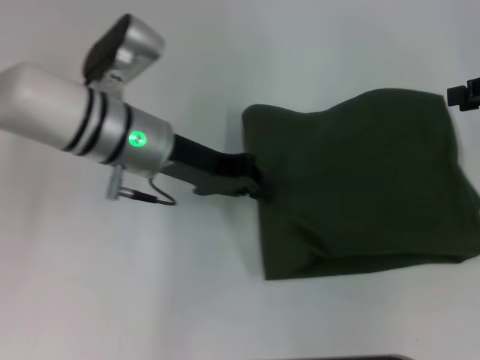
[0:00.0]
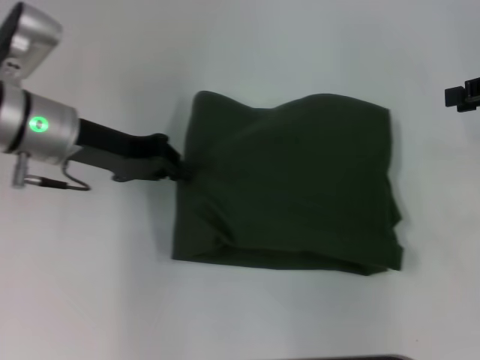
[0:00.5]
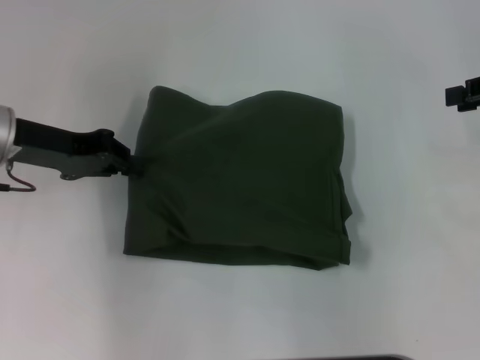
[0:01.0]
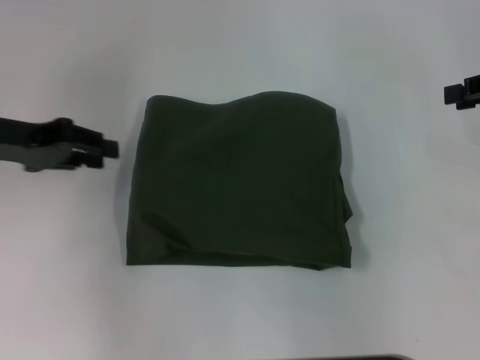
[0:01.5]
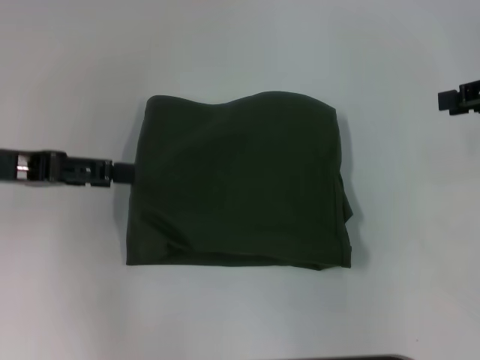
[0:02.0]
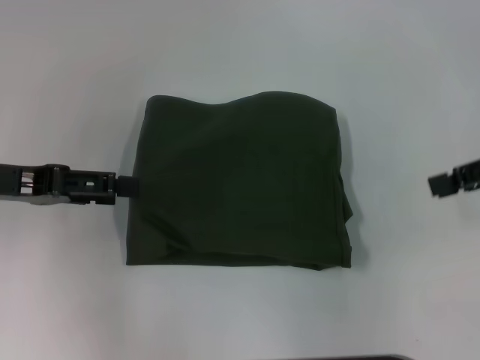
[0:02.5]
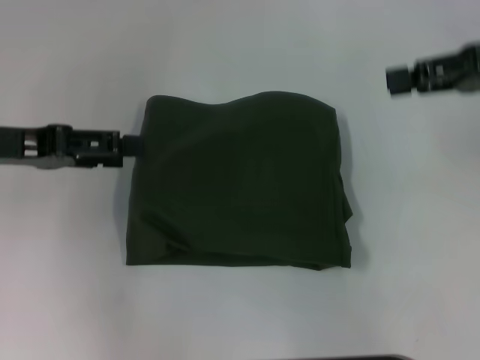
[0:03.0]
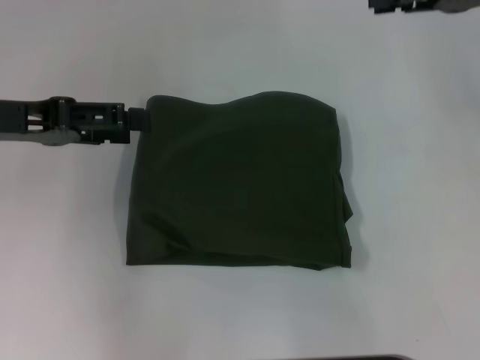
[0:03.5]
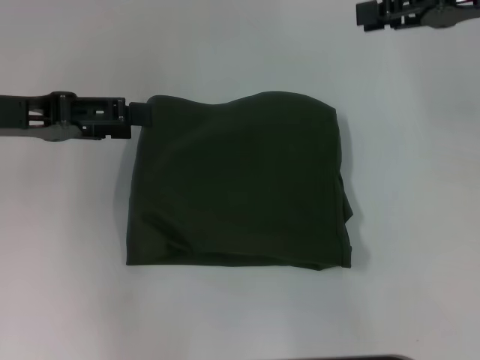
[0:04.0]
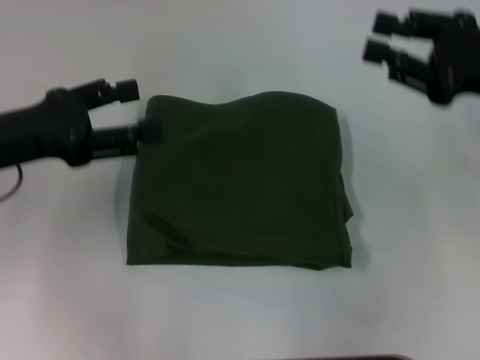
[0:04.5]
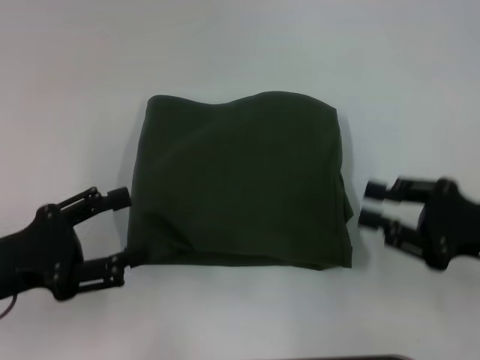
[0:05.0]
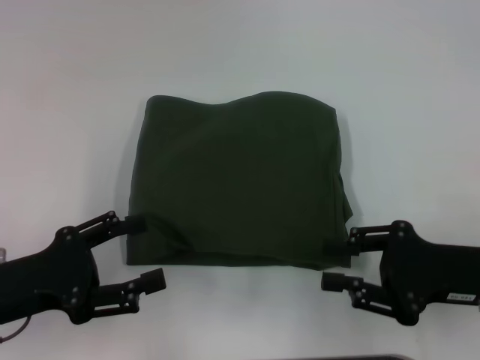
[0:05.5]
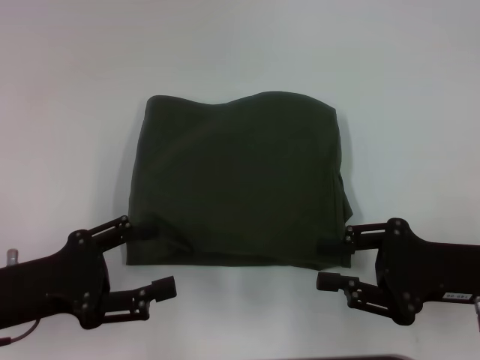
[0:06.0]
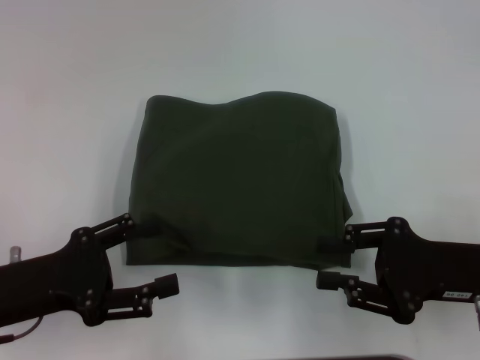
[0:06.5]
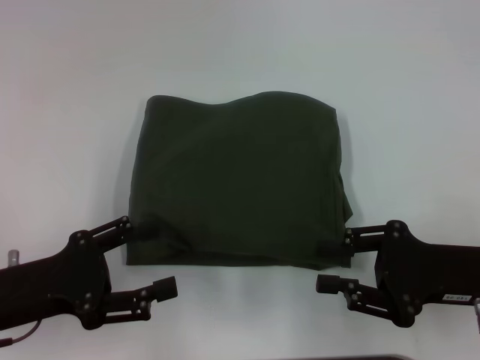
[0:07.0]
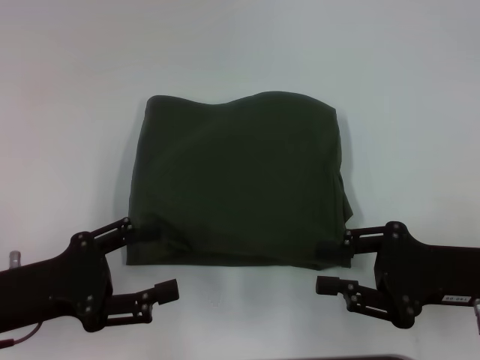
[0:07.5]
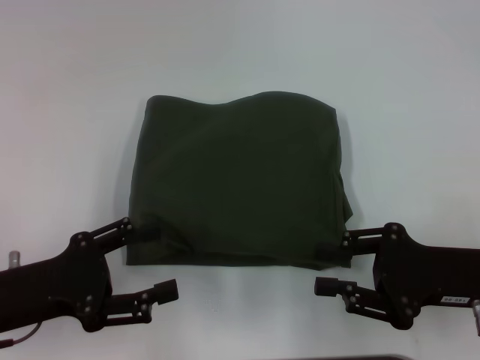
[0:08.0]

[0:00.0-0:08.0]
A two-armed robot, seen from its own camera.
0:00.0 to 0:02.0: The left gripper heads to the left, covering roughly 15 cm, and opens up.
0:02.0 to 0:04.0: The right gripper is displaced to the left by roughly 5 cm.
0:04.0 to 0:06.0: The grippers both shift backward and downward by some 20 cm.
0:06.0 to 0:08.0: Neither gripper changes place.

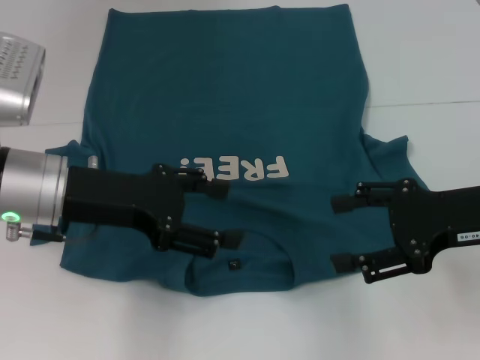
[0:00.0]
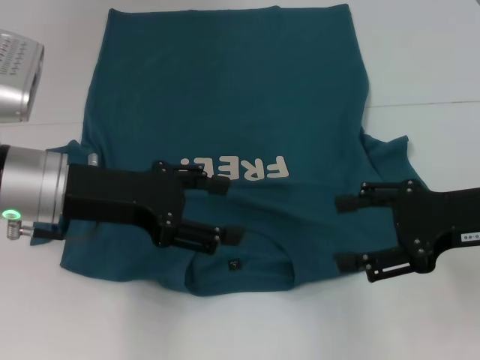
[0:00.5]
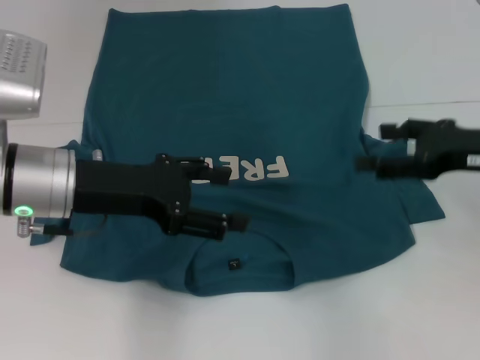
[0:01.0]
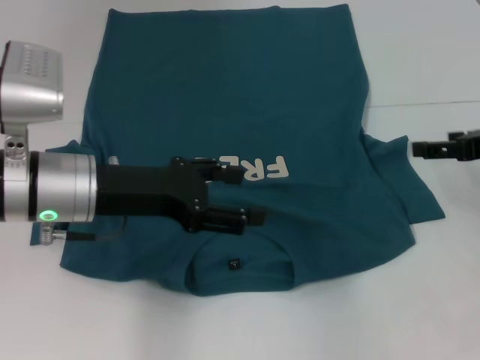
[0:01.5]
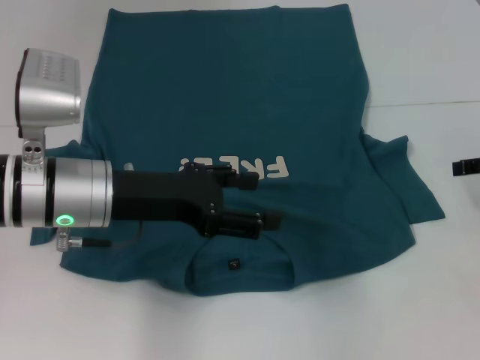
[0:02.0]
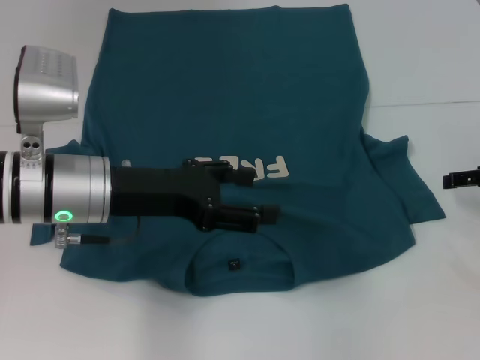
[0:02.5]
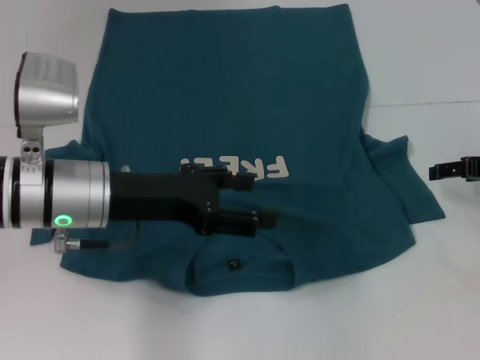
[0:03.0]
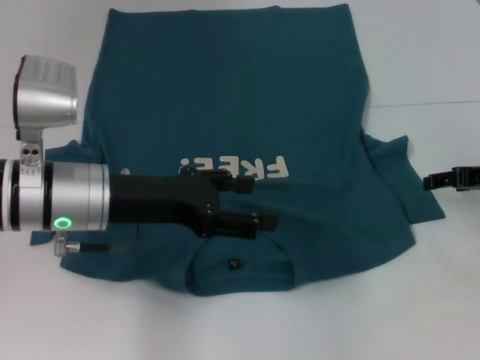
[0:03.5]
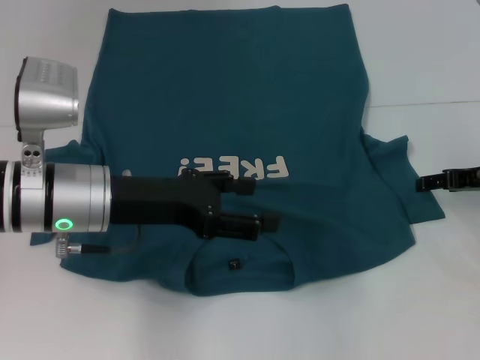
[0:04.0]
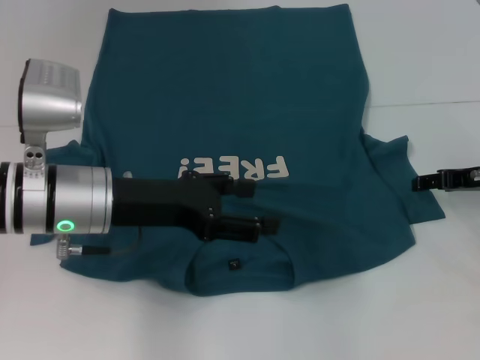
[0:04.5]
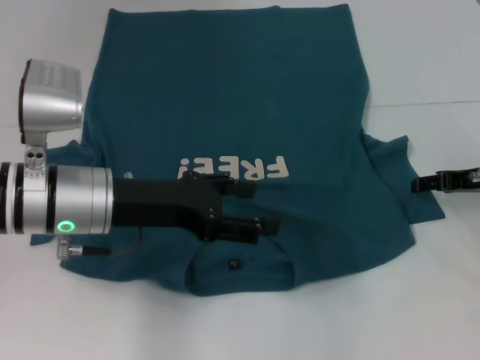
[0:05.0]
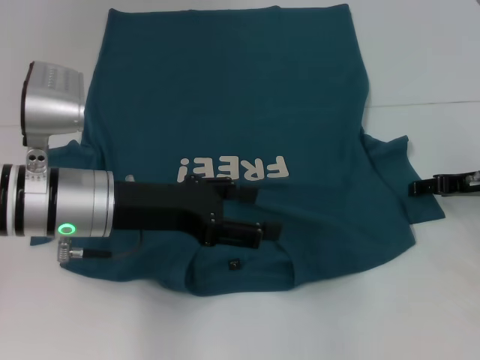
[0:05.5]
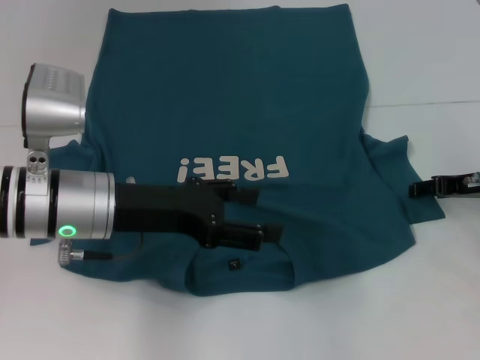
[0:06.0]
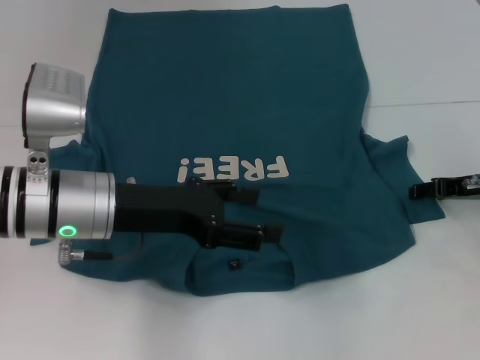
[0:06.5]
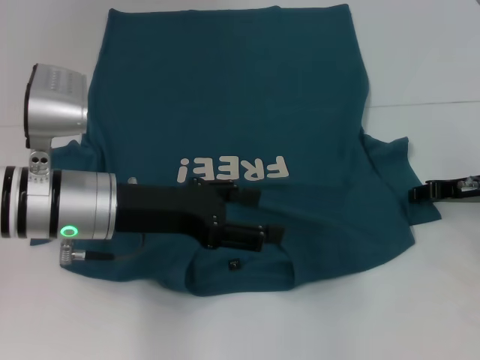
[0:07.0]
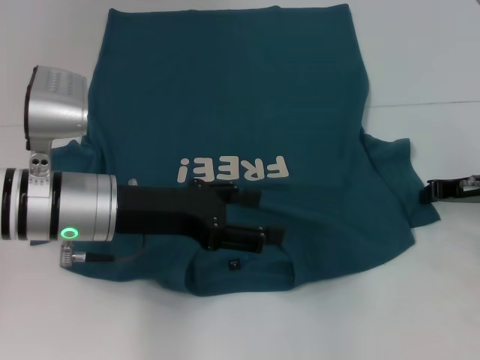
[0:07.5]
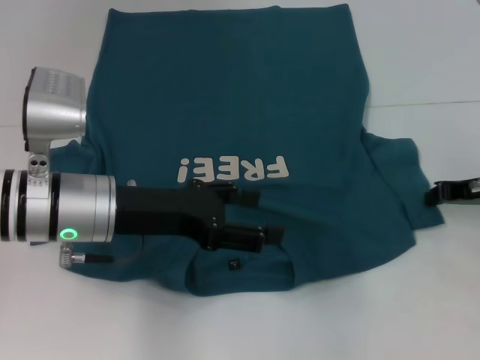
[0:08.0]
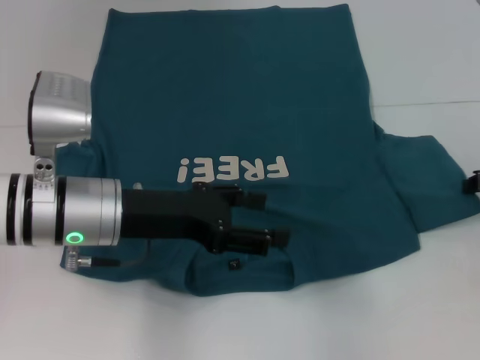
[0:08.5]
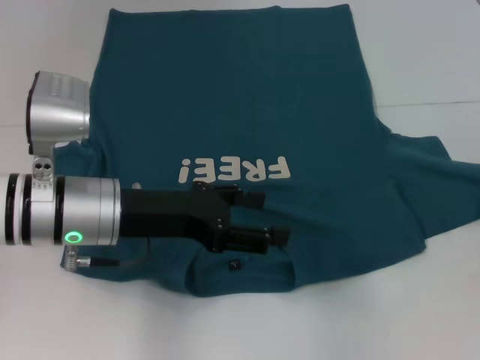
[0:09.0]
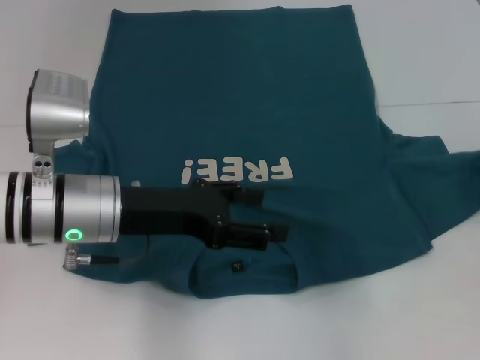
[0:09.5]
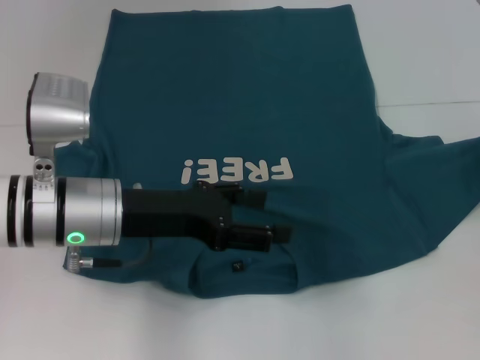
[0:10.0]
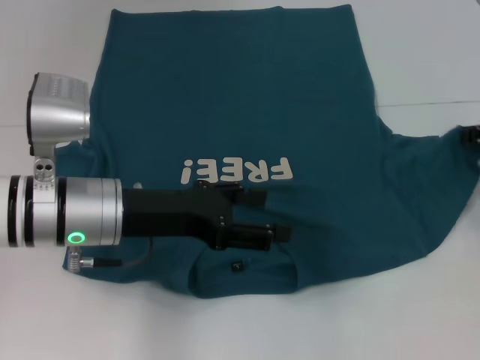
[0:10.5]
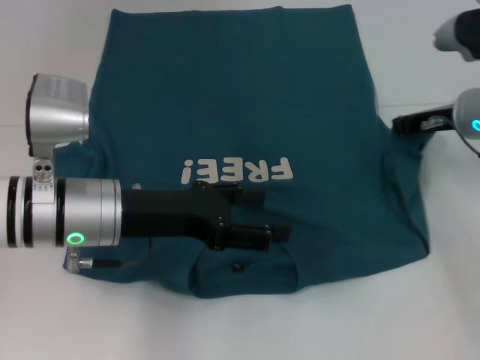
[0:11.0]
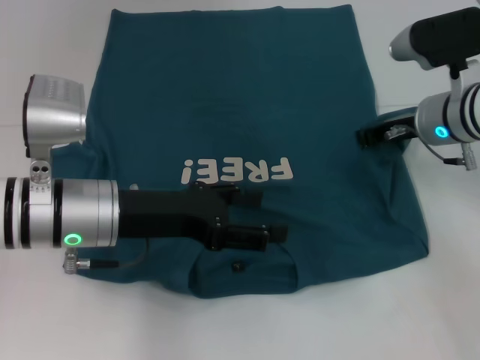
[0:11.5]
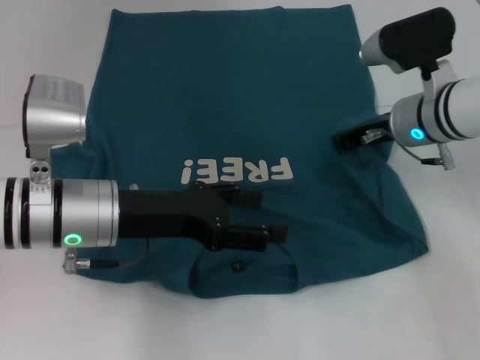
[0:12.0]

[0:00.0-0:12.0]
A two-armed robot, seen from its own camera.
0:00.0 to 0:02.0: The right gripper travels to the right and forward by about 10 cm.
0:02.0 to 0:04.0: The right gripper travels downward by some 5 cm.
0:04.0 to 0:06.0: The grippers move only a little.
0:06.0 to 0:08.0: The right gripper closes up.
0:08.0 to 0:10.0: The right gripper moves roughly 5 cm.
0:10.0 to 0:12.0: The right gripper is displaced to the left by roughly 15 cm.

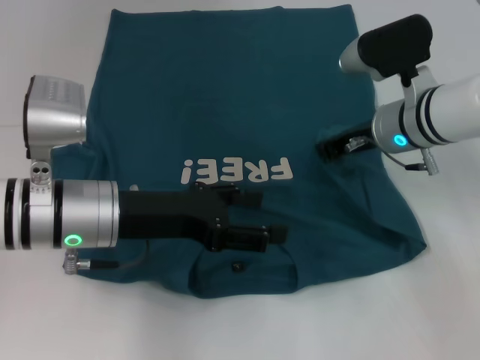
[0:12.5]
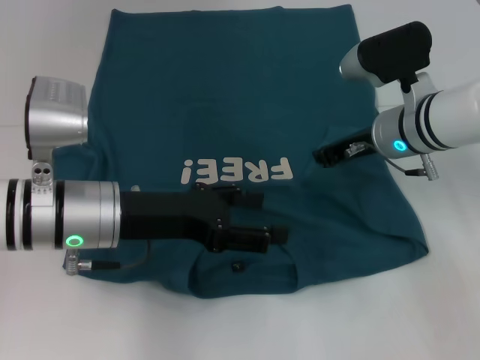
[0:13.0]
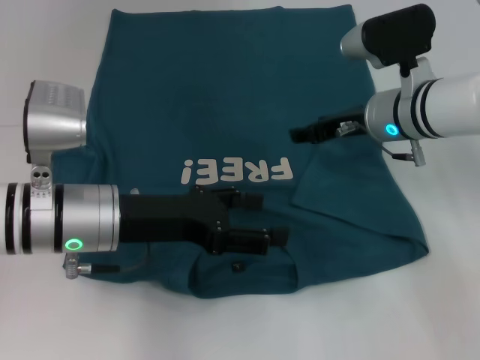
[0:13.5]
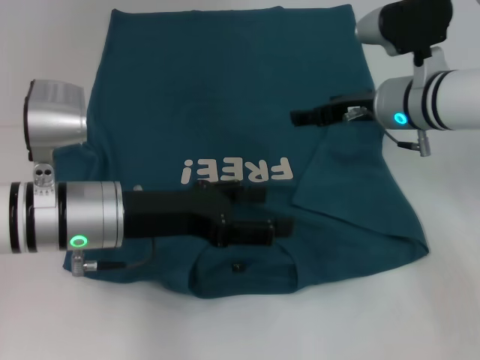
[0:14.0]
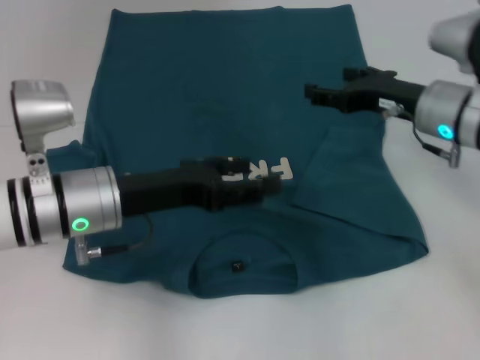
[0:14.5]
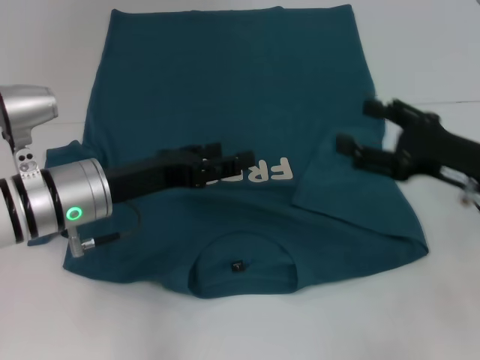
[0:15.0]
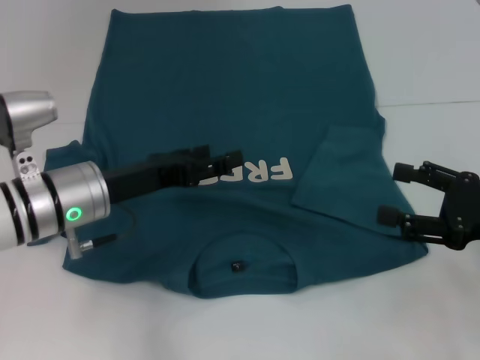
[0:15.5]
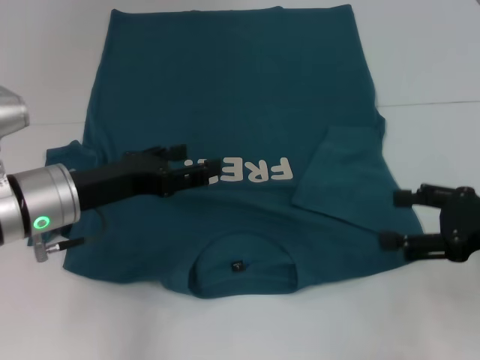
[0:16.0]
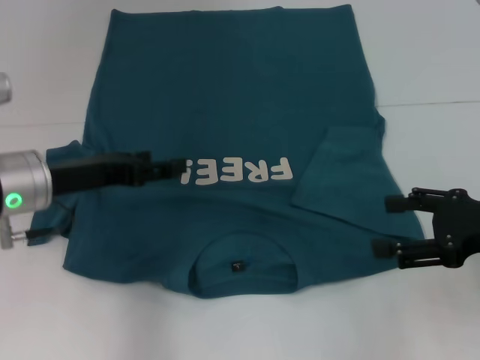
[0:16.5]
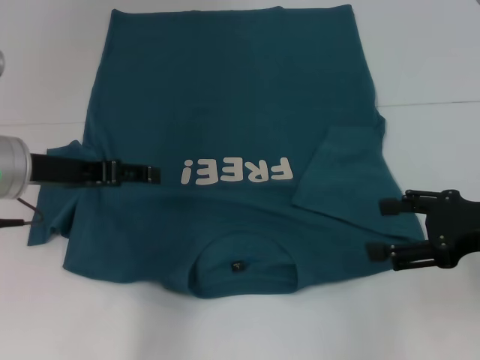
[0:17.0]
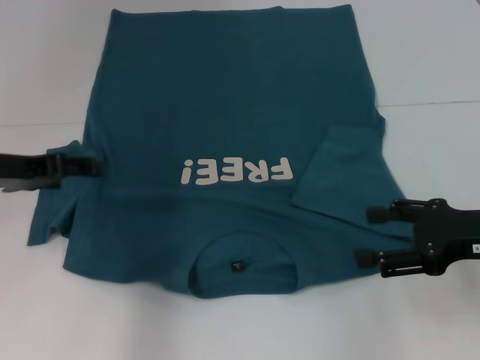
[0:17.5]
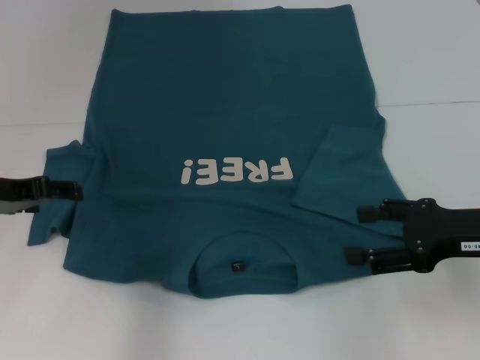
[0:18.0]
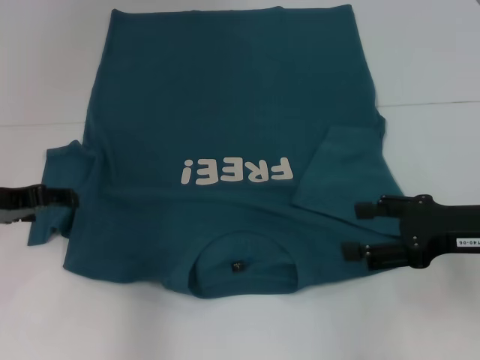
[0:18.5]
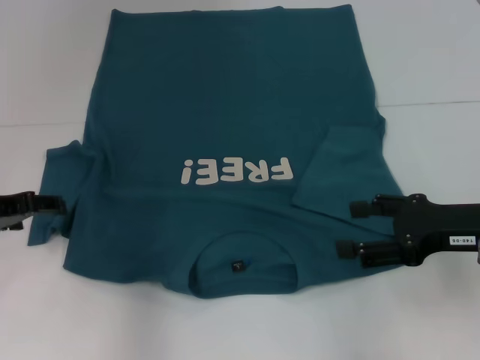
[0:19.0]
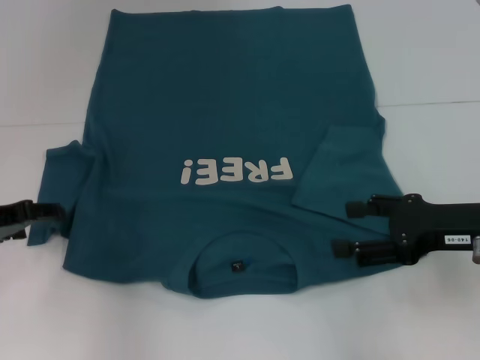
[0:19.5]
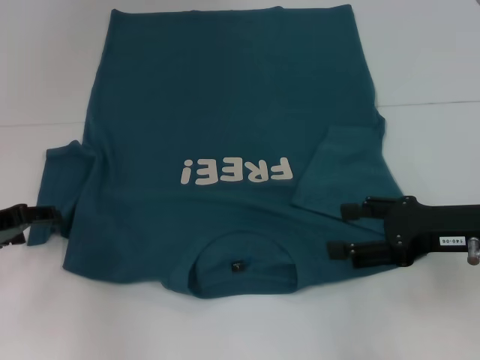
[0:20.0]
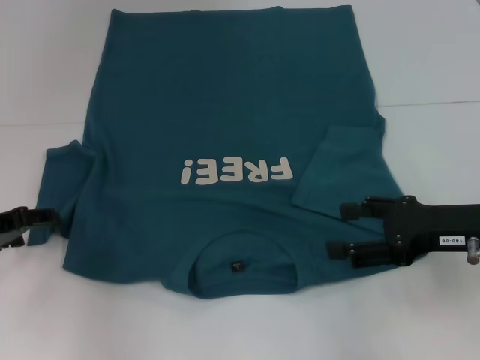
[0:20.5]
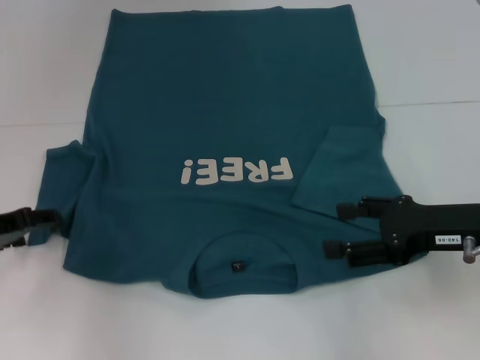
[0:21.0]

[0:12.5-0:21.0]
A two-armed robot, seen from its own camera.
0:12.5 to 0:14.5: The right gripper moves roughly 5 cm, and opens.
0:14.5 to 0:16.5: The left gripper moves to the left, roughly 5 cm. The right gripper goes approximately 15 cm backward and to the right.
0:16.5 to 0:19.0: The left gripper travels to the left by roughly 10 cm.
0:19.0 to 0:21.0: The grippers make only small movements.
